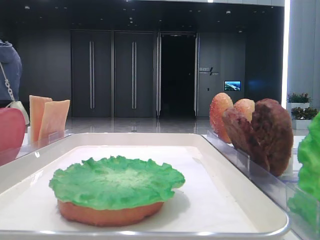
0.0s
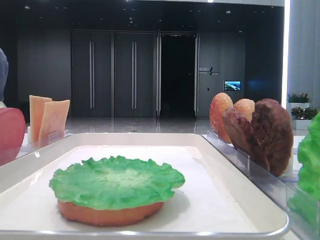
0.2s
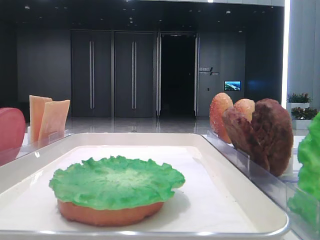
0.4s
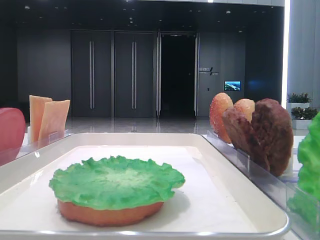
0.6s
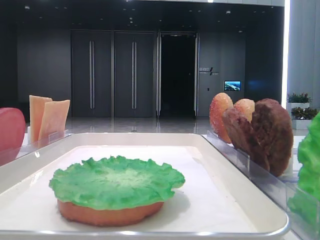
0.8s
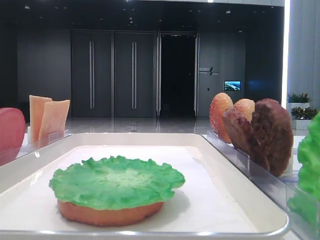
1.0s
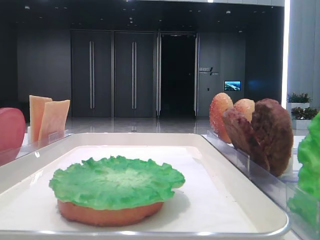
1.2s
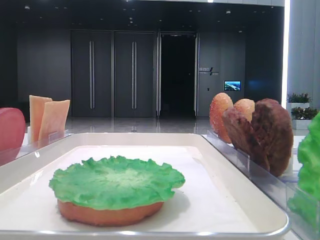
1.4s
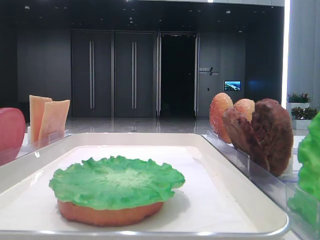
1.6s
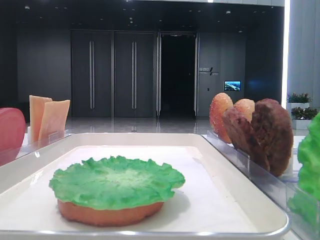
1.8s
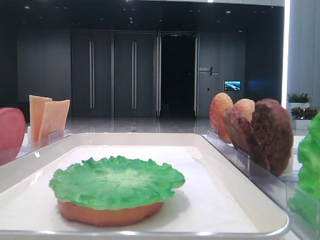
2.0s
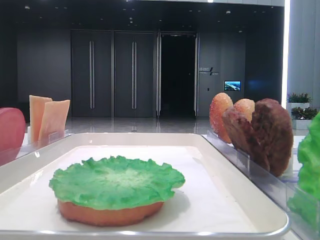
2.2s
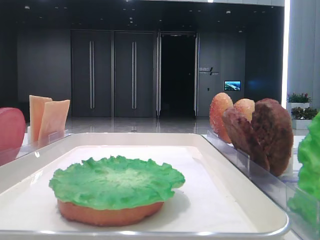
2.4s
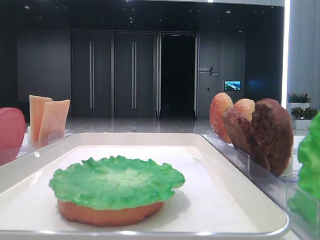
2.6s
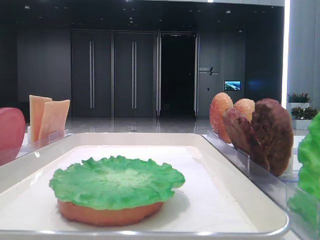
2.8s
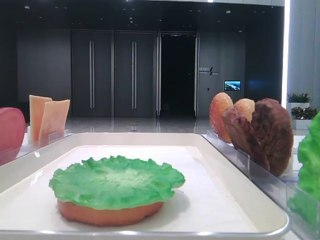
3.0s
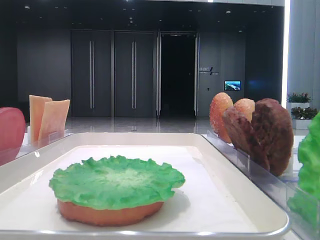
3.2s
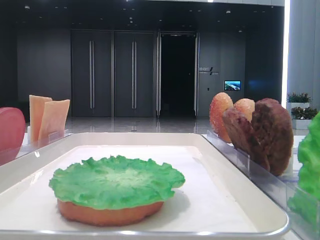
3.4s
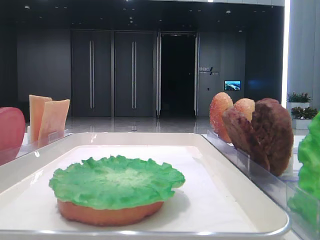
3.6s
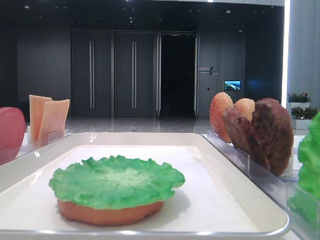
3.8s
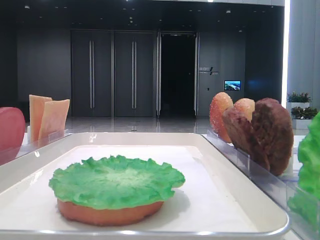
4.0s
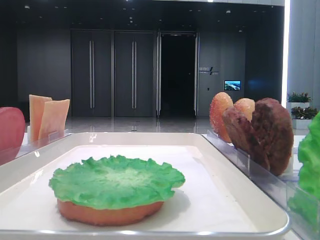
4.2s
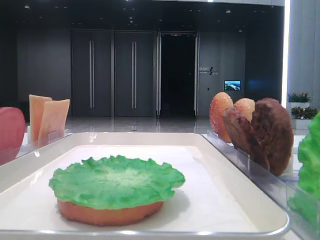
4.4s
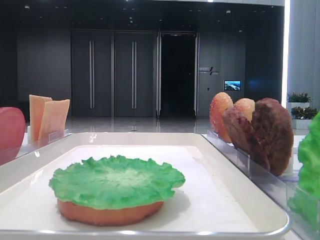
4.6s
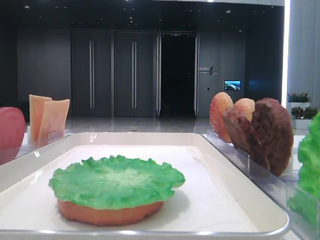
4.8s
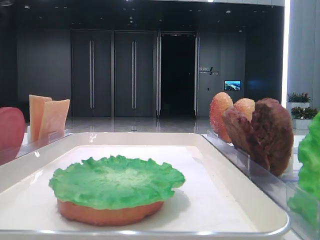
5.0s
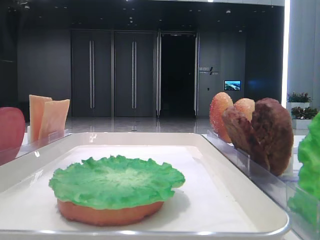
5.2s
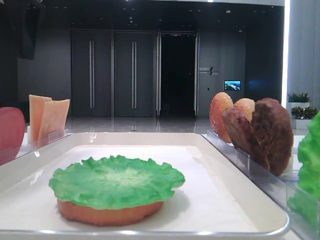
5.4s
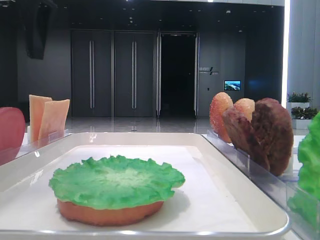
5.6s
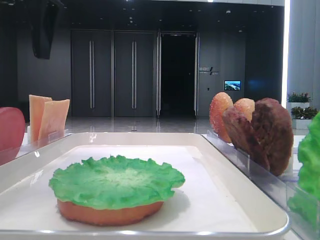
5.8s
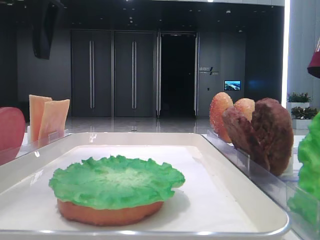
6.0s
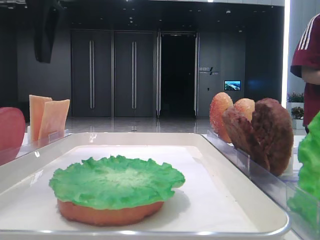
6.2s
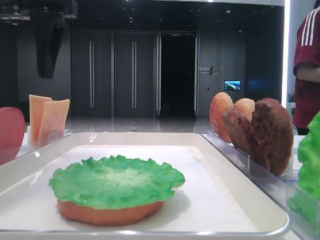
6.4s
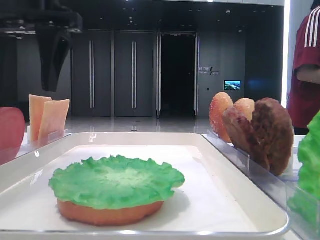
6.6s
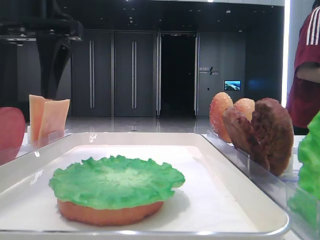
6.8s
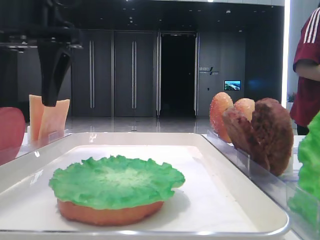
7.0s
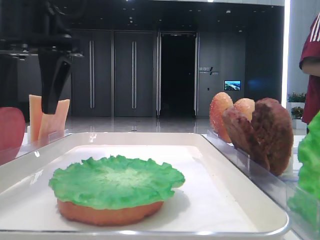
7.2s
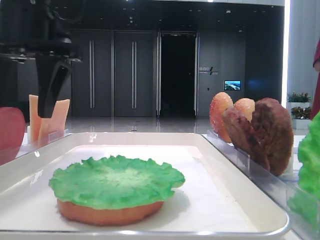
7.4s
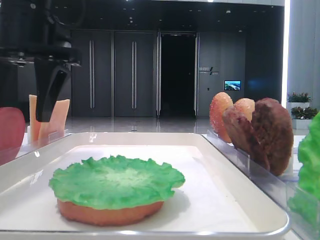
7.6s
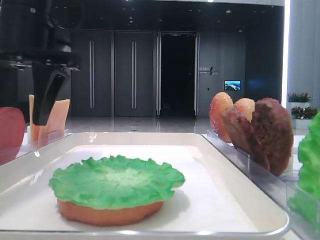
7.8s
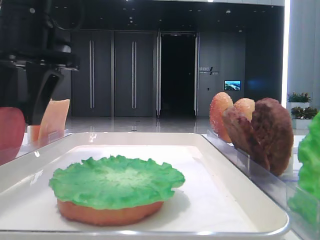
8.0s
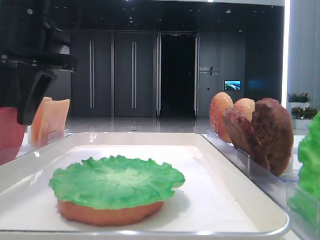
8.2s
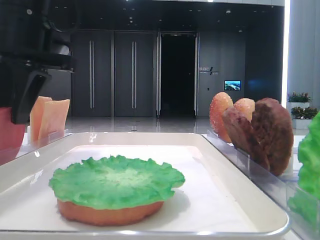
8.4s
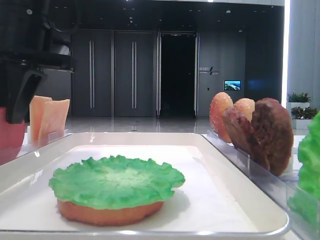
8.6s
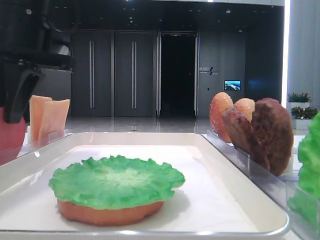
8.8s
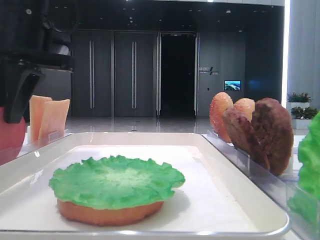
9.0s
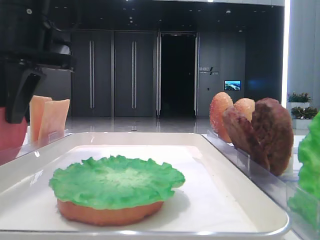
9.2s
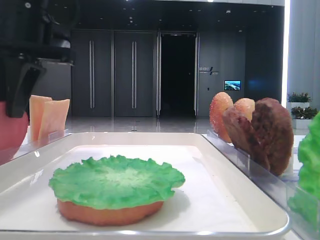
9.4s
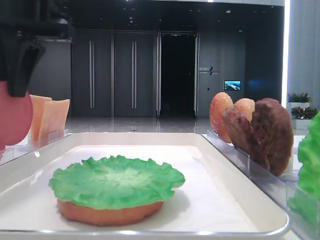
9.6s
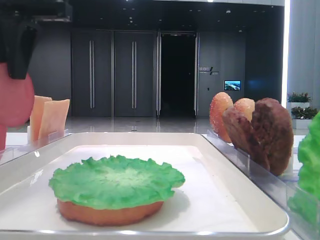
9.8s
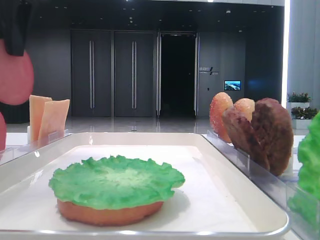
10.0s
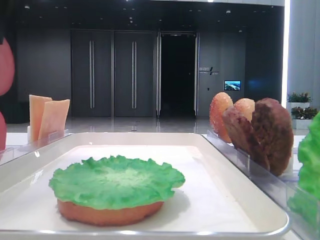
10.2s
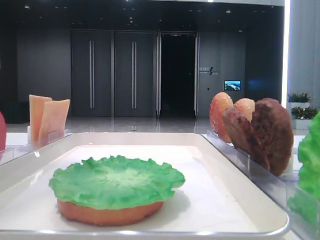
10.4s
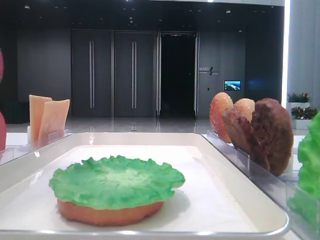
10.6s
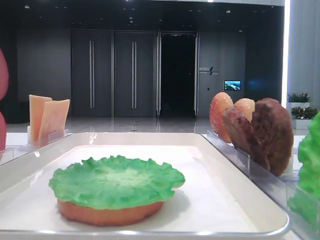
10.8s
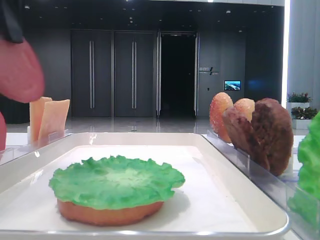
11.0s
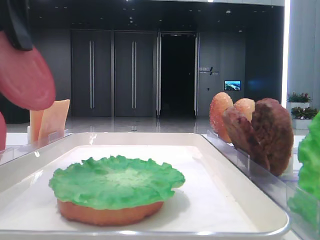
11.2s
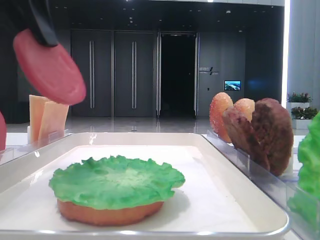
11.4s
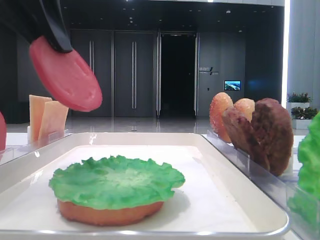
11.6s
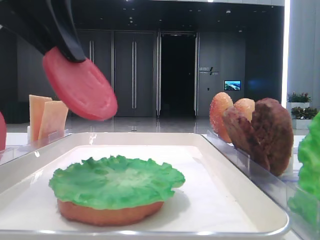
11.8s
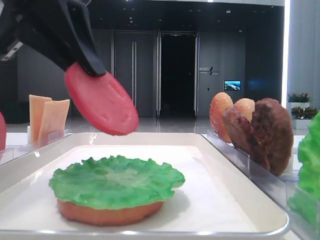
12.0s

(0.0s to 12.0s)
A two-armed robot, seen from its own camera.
Step, 0.0s - 9.0s: Pick up the tomato slice with the left hand.
4.4s - 6.0s: The left gripper goes approximately 15 cm to the right.
6.0s - 7.6s: The left gripper moves downward, roughly 5 cm.
7.6s - 9.0s: The left gripper closes.
9.0s - 10.4s: The left gripper is displaced upward and backward by about 10 cm.
10.4s - 12.0s: The left gripper moves downward and to the right, some 10 cm.

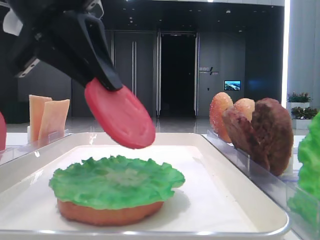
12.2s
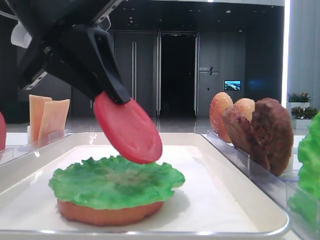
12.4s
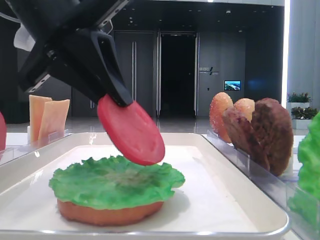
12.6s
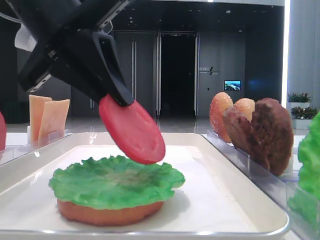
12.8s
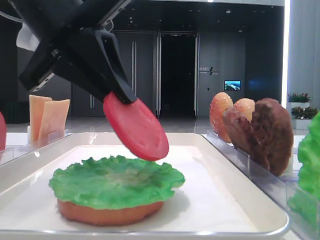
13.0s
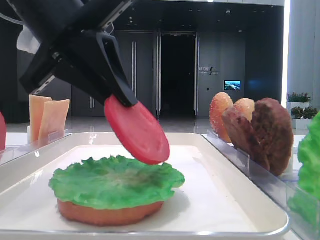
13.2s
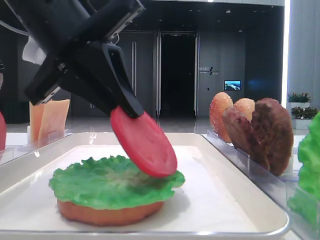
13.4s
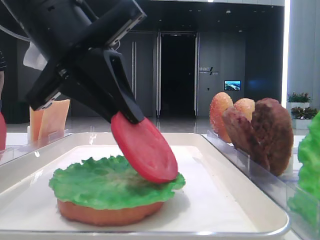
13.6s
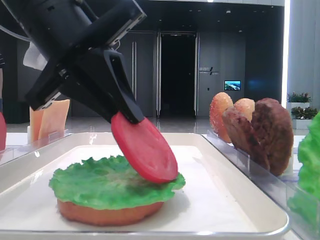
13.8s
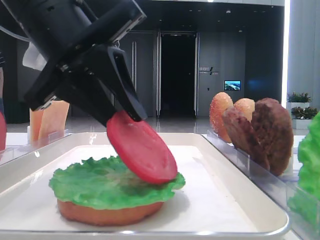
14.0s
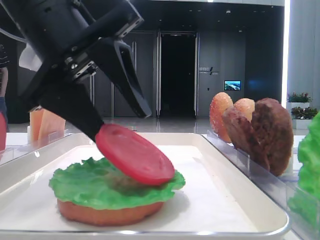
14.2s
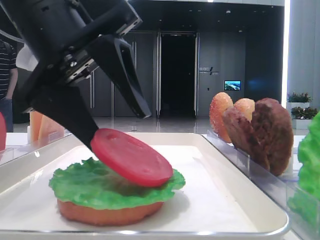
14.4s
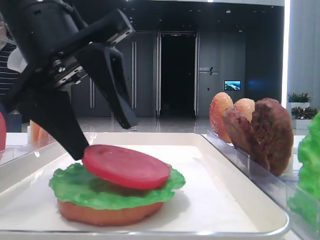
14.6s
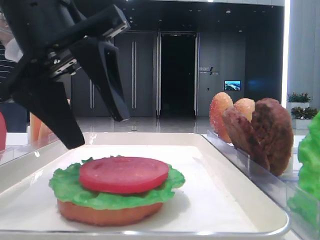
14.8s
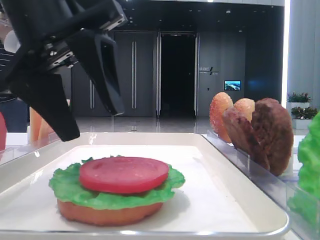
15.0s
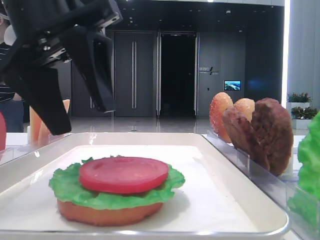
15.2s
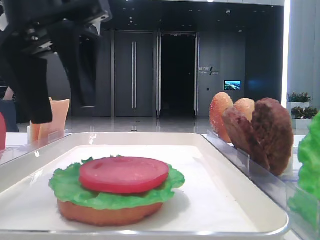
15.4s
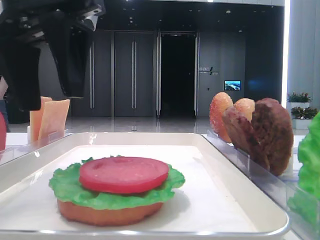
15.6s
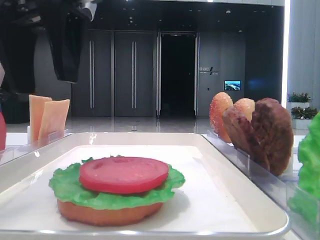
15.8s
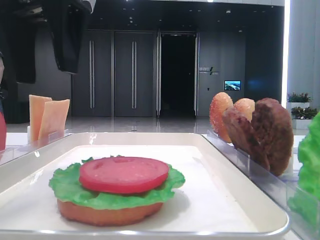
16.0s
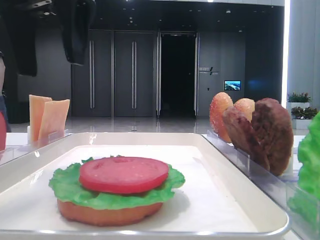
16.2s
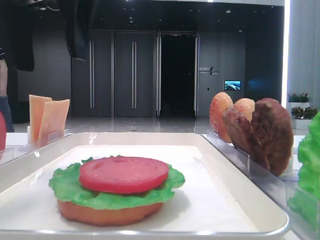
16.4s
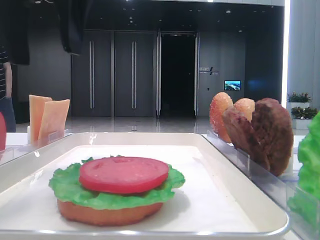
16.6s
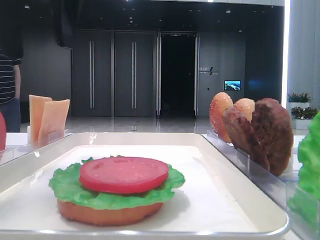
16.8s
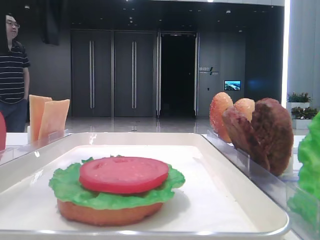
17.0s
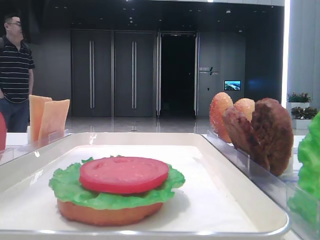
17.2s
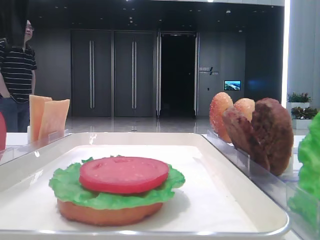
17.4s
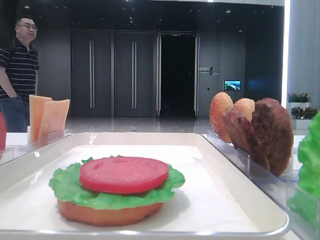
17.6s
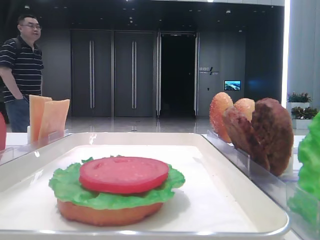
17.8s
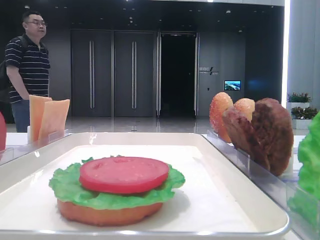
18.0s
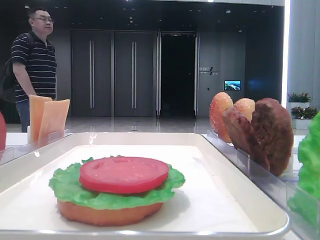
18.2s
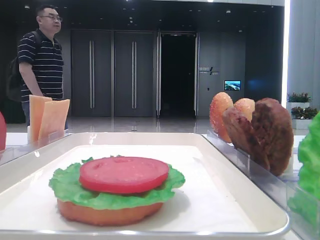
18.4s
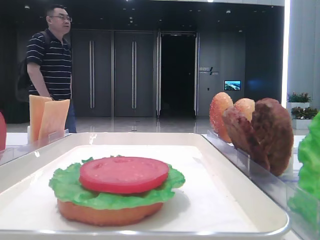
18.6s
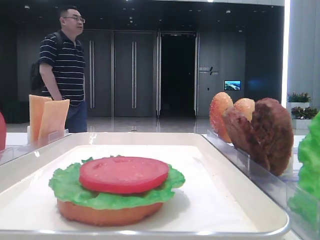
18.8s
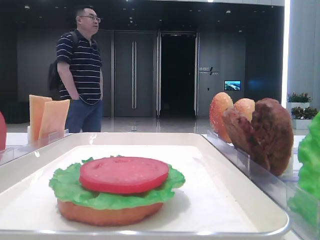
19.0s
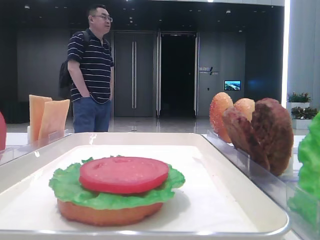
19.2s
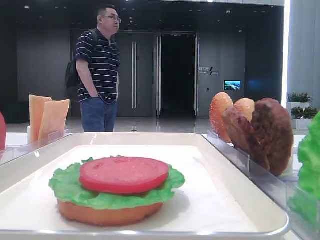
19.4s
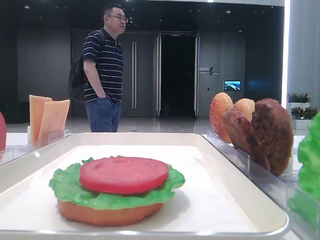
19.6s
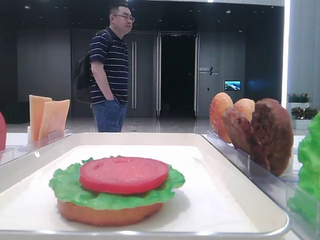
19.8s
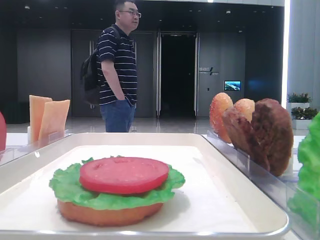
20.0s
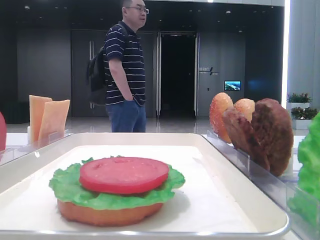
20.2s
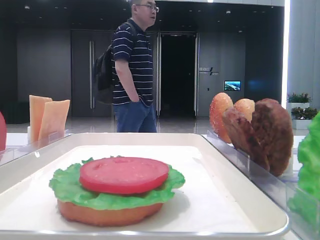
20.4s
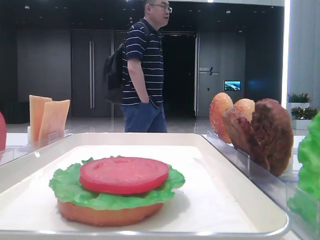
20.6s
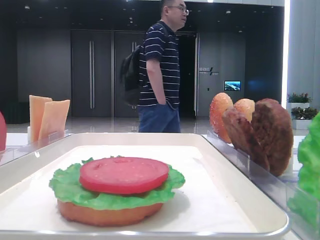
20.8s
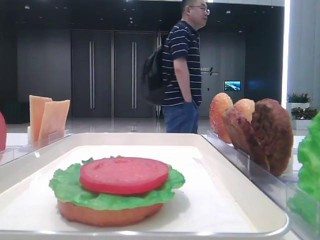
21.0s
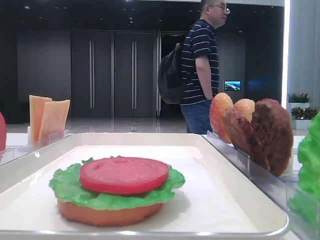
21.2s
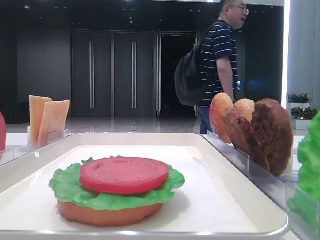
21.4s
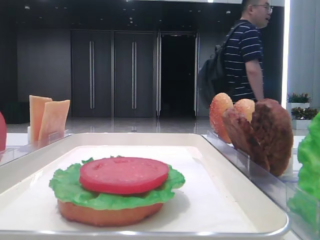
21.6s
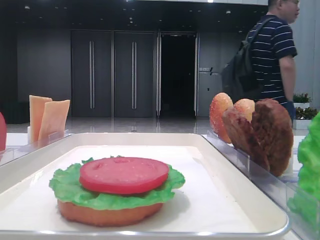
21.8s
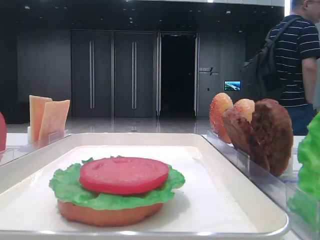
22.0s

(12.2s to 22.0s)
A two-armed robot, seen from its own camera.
Step, 12.2s - 14.6s: Place the tomato slice on the lettuce leaf with the left hand.
12.2s - 13.6s: The grippers make only small movements.
13.6s - 15.0s: The left gripper opens up.
15.0s - 16.4s: The left gripper is displaced upward by some 10 cm.
16.4s - 17.8s: The left gripper is displaced to the left by approximately 10 cm.
17.8s - 19.2s: The left gripper heads to the left and backward, covering approximately 10 cm.
19.2s - 20.6s: The left gripper travels backward by roughly 20 cm.
20.6s - 22.0s: The left gripper shifts about 5 cm backward.

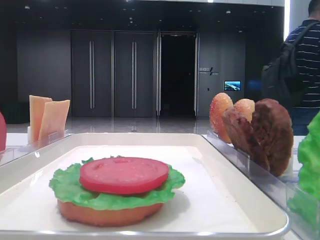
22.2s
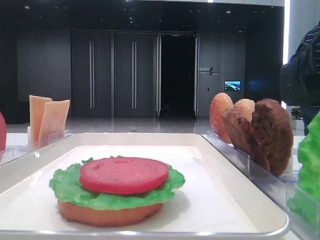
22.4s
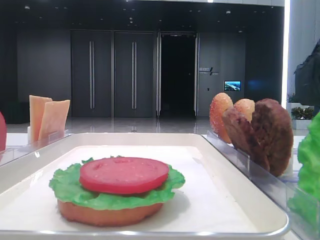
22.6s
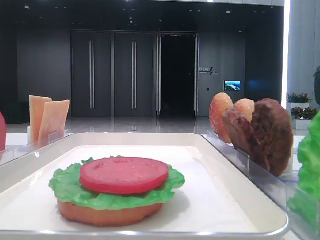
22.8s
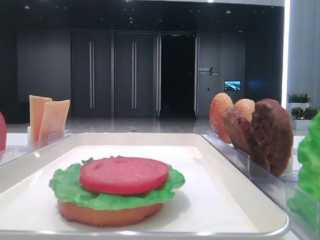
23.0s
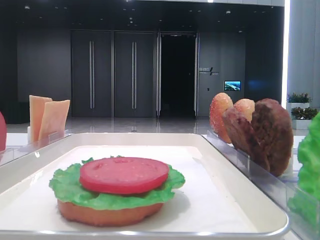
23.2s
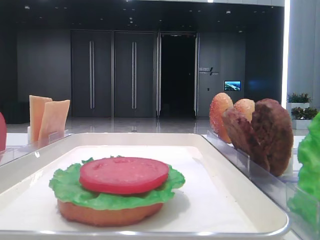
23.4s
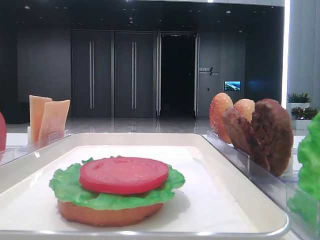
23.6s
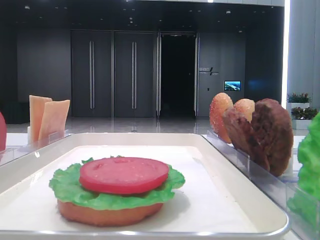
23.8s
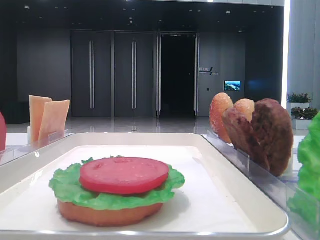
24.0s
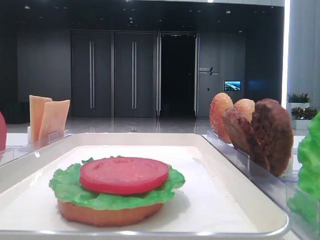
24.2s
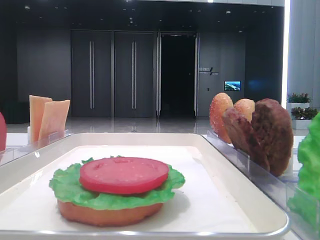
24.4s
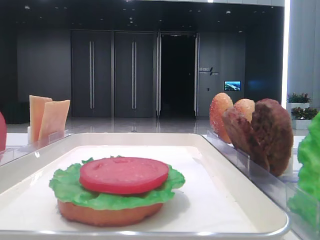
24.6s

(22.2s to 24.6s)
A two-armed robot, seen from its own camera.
22.2s - 23.4s: Neither gripper changes place.
